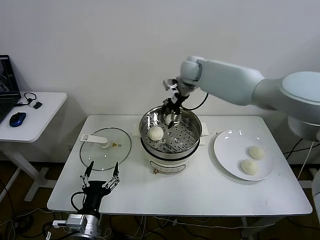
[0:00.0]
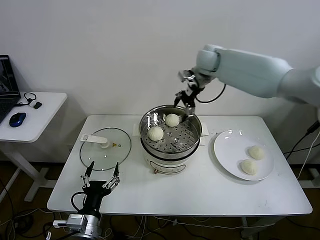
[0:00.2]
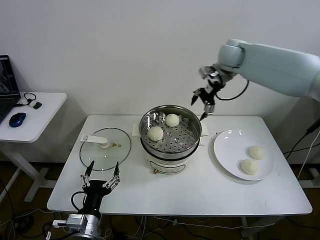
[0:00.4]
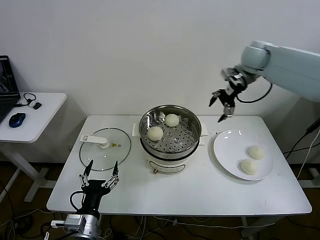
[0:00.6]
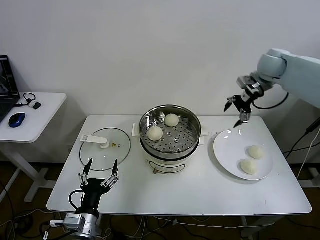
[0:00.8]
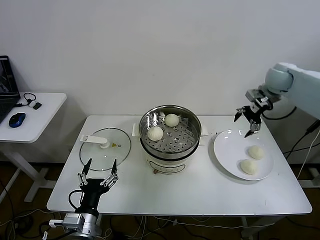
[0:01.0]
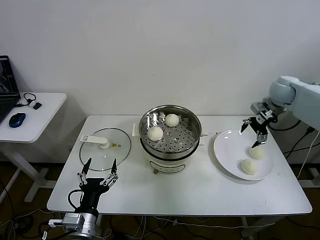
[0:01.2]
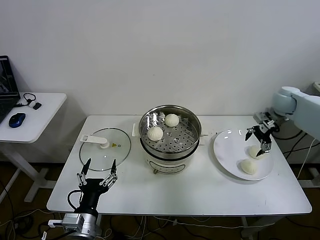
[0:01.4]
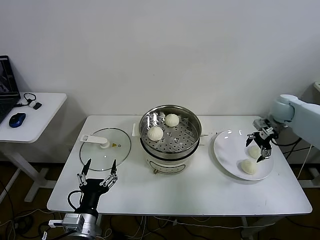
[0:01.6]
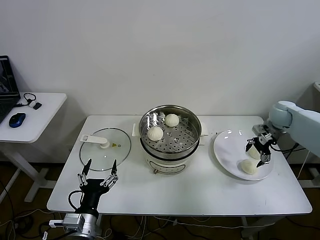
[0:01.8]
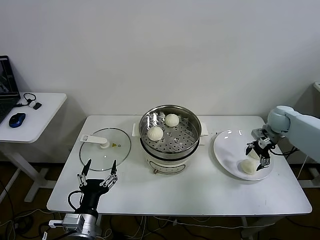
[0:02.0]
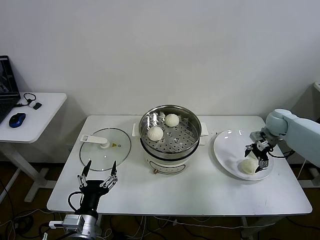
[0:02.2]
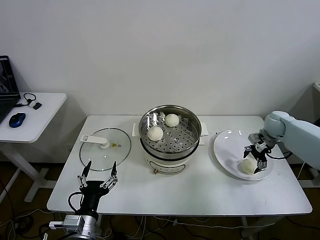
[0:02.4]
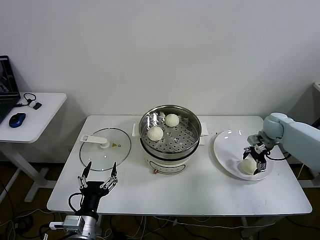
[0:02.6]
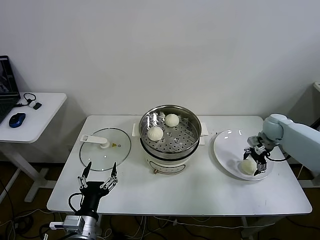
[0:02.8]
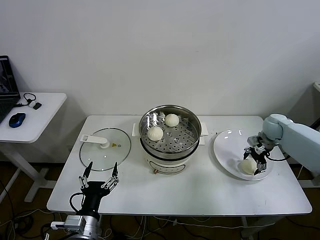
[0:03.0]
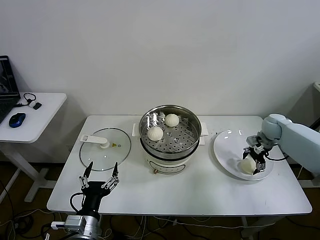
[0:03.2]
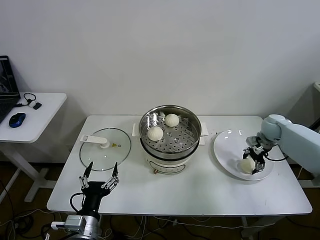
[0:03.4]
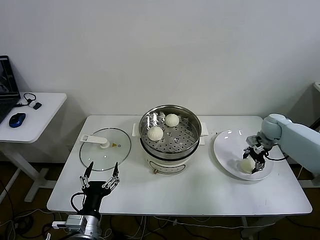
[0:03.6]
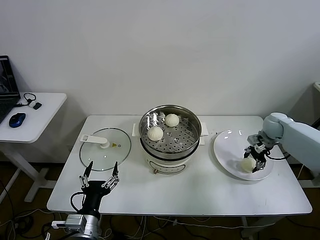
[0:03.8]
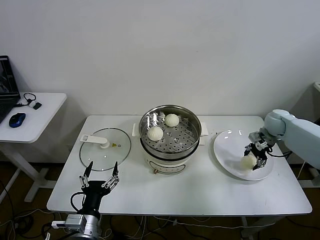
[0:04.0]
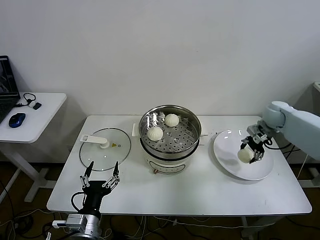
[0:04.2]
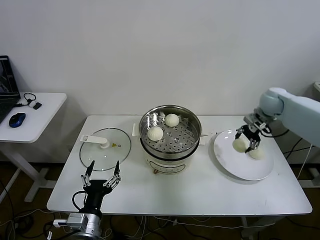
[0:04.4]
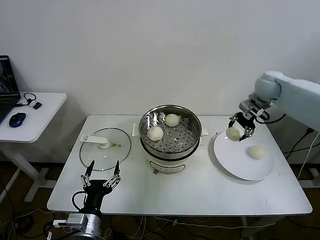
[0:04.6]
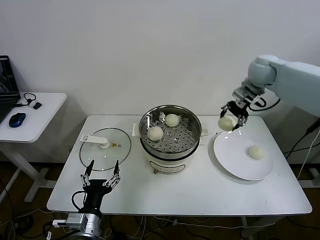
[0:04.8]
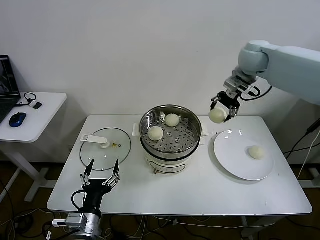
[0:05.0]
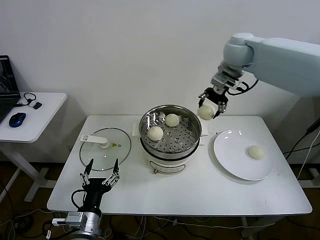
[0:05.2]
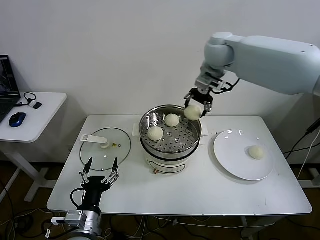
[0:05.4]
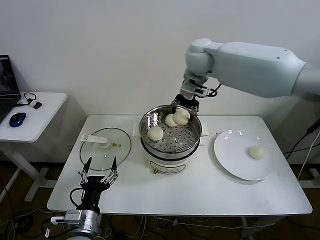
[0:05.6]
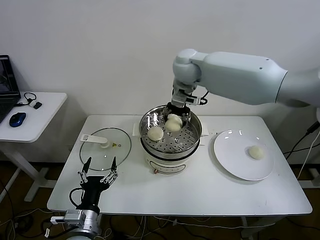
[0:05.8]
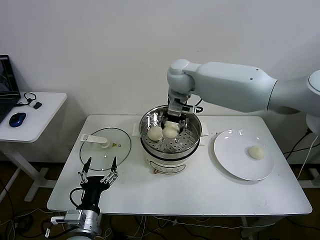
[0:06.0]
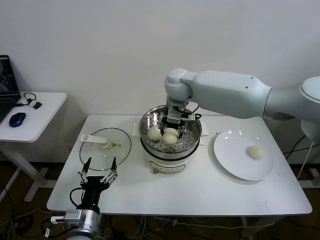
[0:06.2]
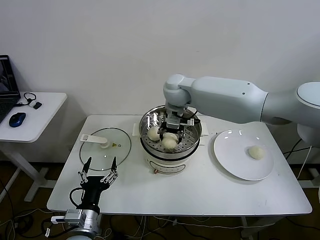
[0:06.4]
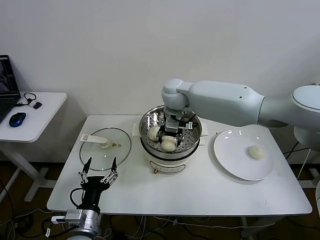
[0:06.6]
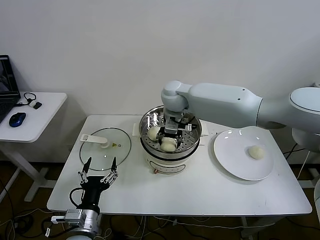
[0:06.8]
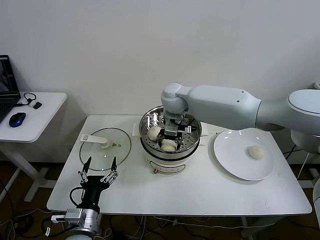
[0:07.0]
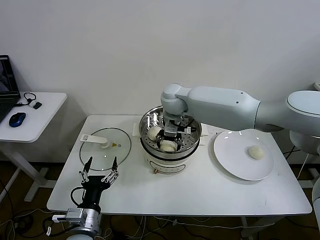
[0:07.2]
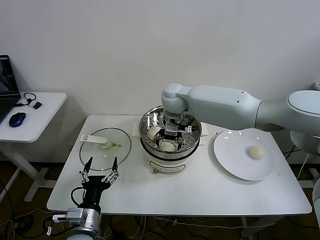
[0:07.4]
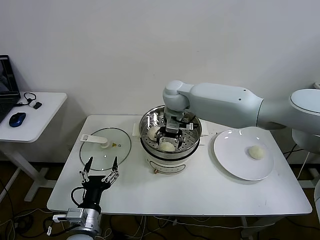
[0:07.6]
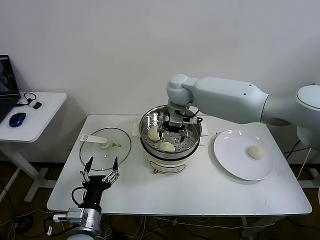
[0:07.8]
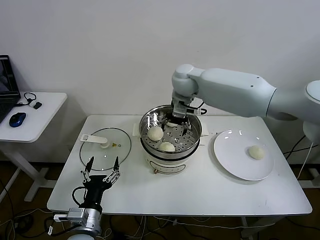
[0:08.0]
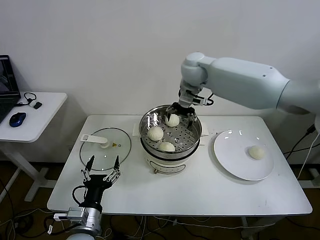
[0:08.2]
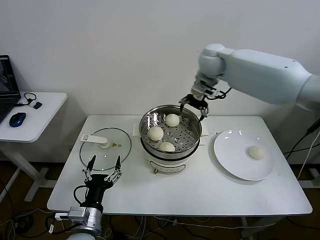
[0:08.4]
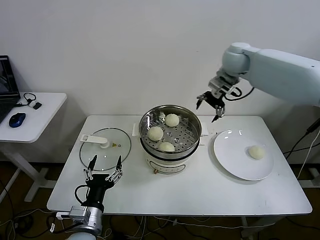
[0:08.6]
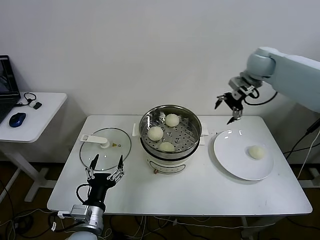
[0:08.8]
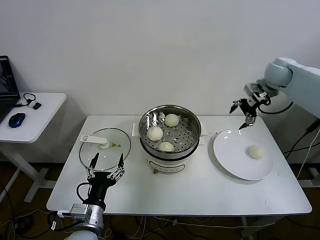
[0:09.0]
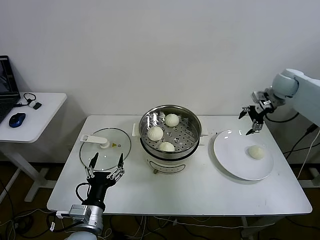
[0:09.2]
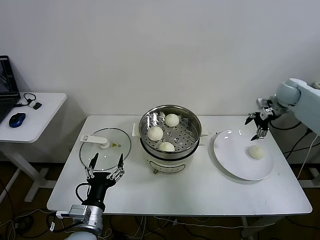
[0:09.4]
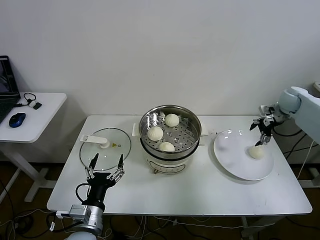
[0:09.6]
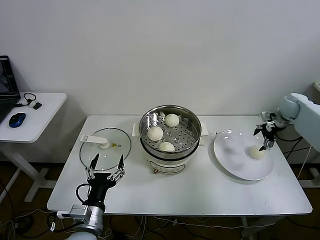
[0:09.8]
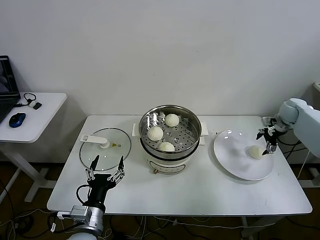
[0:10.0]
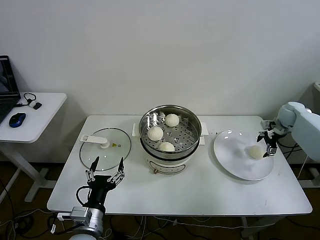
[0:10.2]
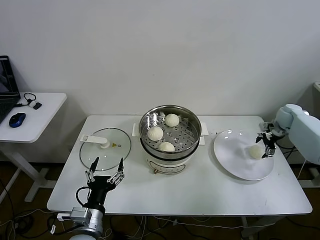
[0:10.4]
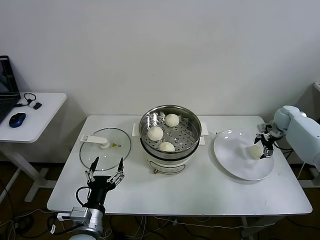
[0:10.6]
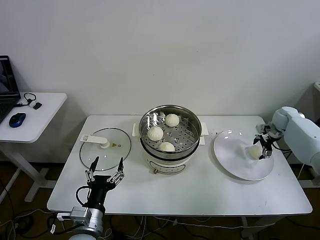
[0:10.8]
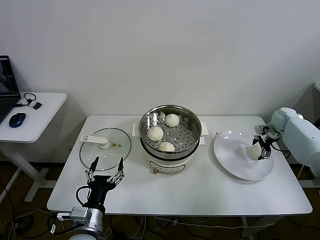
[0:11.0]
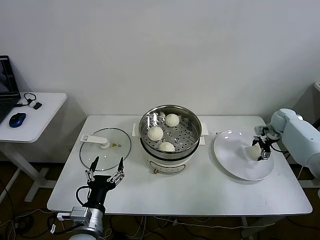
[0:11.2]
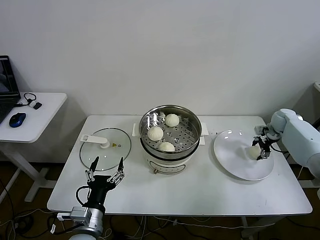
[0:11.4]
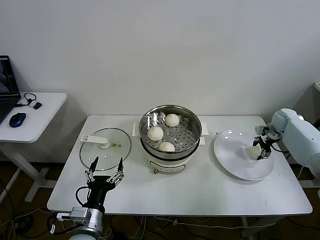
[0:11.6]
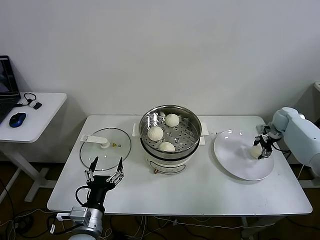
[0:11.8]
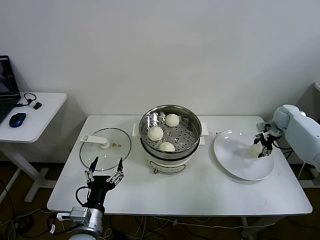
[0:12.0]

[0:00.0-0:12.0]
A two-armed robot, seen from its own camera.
Step, 0.0 to 3.4 s: Grasp the baozi in the plate with right gripper.
Step, 3.8 to 7.6 s: Place the baozi on the steamer with right gripper.
Step, 7.8 to 11.4 s: Grasp the baozi in the plate with right gripper.
0.0 to 1.6 s: The right gripper shifts roughly 35 cm to the right.
1.6 to 3.0 s: The right gripper shifts about 10 cm downward.
3.0 to 4.4 s: The right gripper heads upward, covering some 10 cm, and closes its fingers.
4.4 to 6.0 s: The right gripper heads to the left, covering about 35 cm.
6.0 to 7.6 s: The right gripper heads downward, covering approximately 5 cm, and opens up.
7.6 to 9.0 s: The right gripper heads to the right, covering roughly 35 cm.
9.0 to 10.4 s: The right gripper heads downward and to the right, covering about 20 cm.
10.4 to 12.0 s: The right gripper closes its fingers.

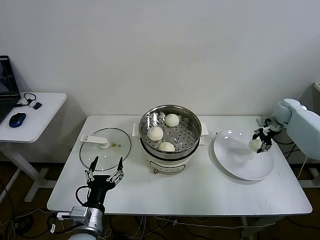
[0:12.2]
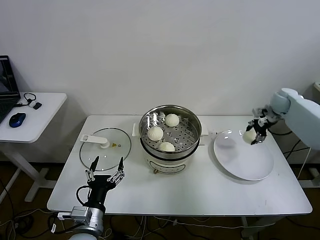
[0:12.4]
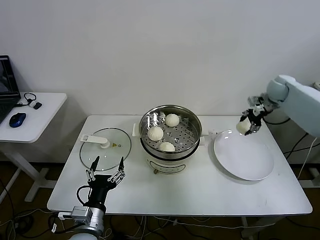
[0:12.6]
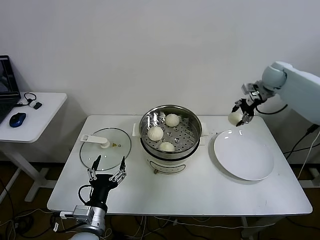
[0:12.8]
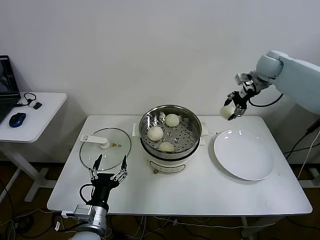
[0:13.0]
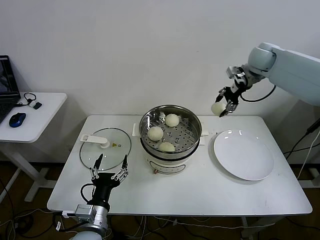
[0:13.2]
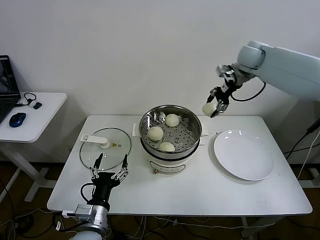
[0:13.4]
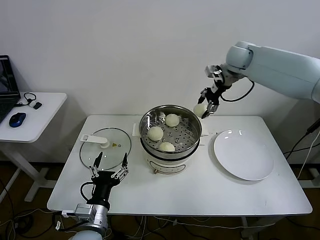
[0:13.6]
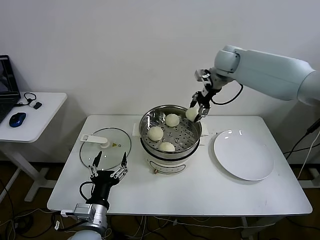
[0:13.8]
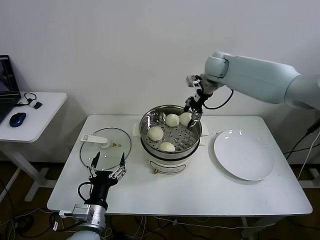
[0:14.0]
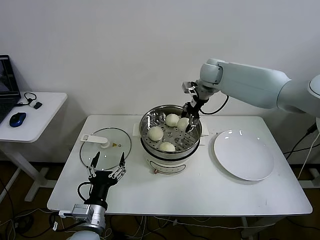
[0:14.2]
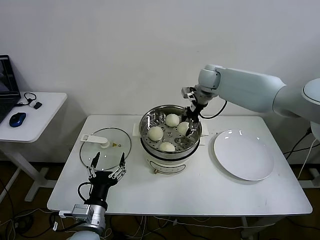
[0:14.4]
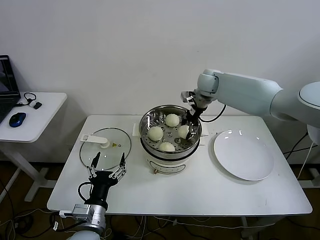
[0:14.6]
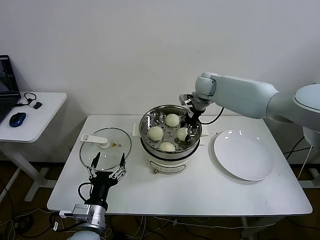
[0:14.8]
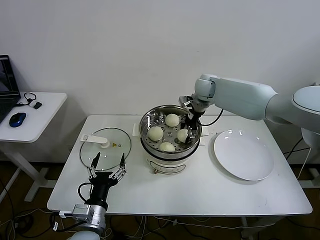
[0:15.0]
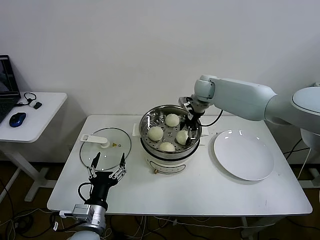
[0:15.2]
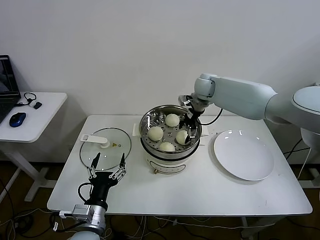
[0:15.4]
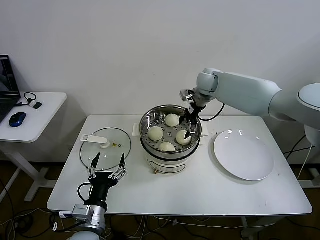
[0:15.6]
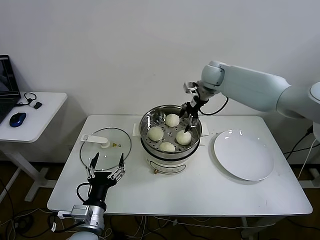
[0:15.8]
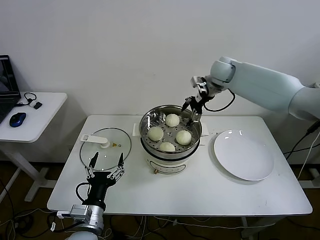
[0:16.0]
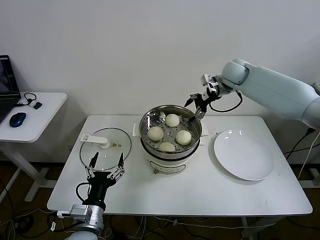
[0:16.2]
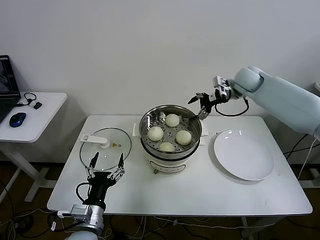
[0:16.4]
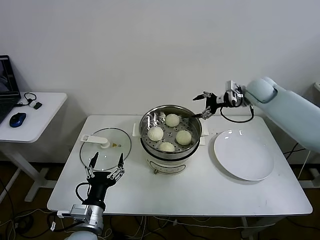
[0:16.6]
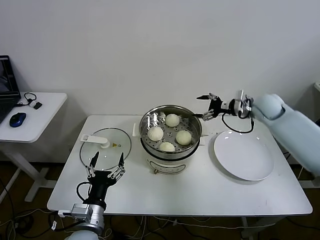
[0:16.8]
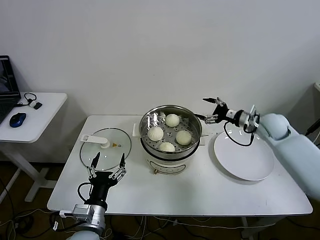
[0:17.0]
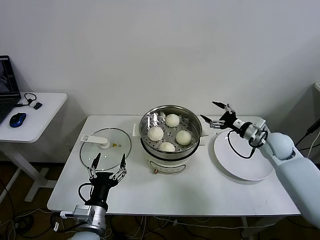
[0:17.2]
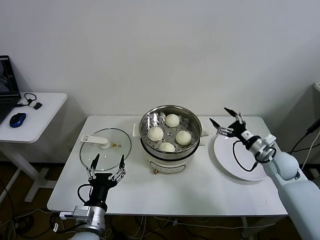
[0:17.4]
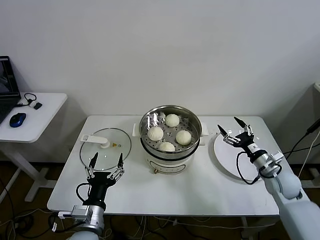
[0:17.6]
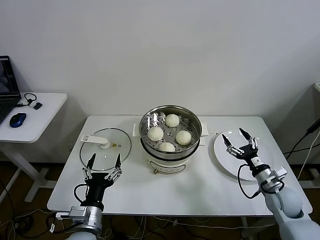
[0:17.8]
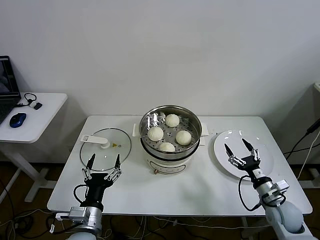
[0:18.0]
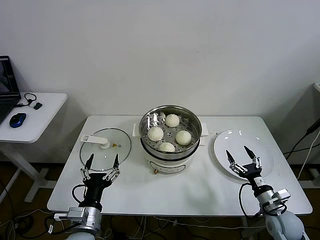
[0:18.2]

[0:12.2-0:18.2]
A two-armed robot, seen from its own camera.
Step, 12.2 to 15.6 s: Place the baozi on the steamer with right gripper.
12.2 to 13.8 s: The right gripper heads to the left and upward, covering about 35 cm.
13.8 to 15.2 s: The right gripper travels downward and to the left by roughly 15 cm, and opens.
15.2 to 16.6 s: The right gripper travels to the right by some 15 cm.
16.6 to 18.2 s: The right gripper travels backward and downward by roughly 40 cm.

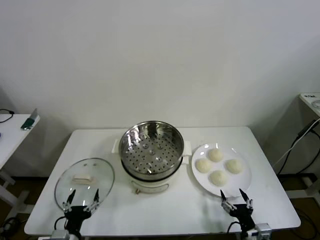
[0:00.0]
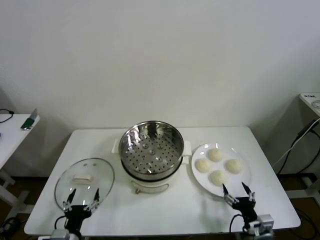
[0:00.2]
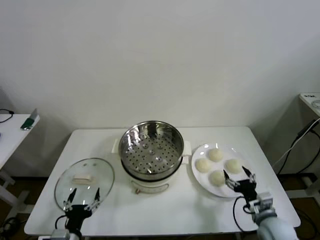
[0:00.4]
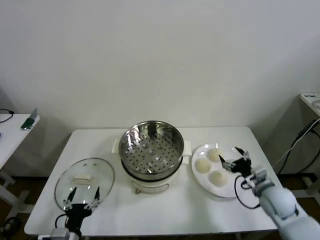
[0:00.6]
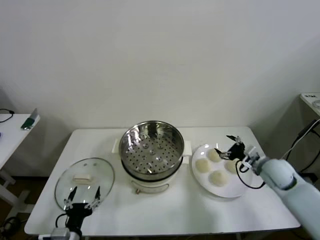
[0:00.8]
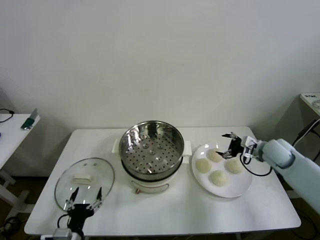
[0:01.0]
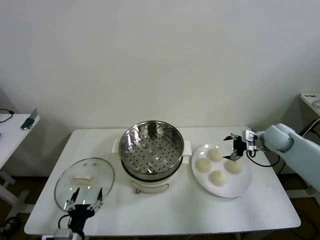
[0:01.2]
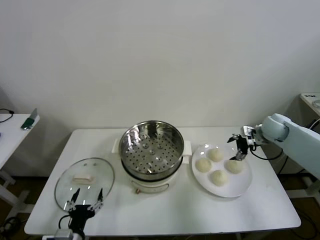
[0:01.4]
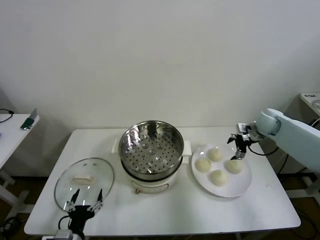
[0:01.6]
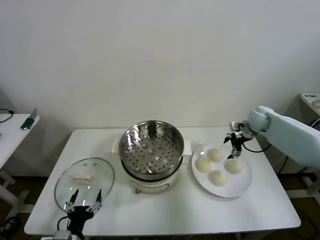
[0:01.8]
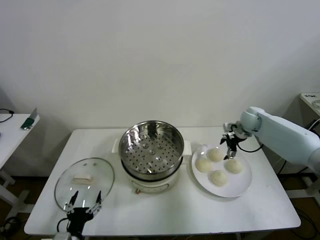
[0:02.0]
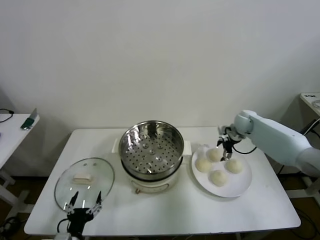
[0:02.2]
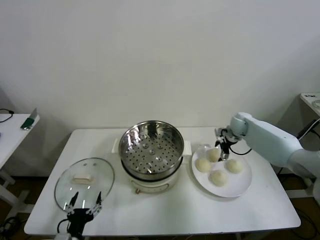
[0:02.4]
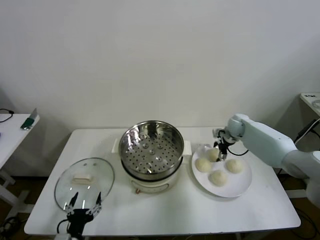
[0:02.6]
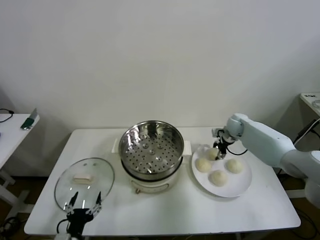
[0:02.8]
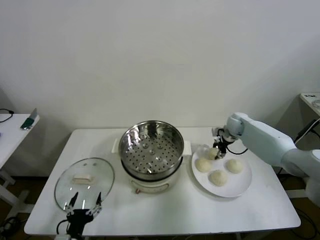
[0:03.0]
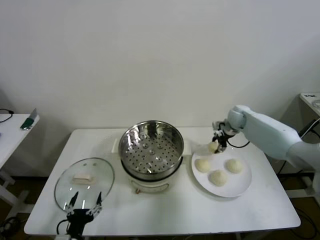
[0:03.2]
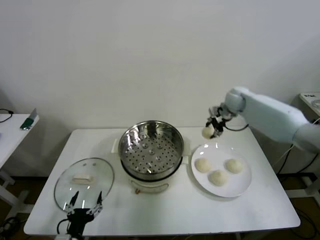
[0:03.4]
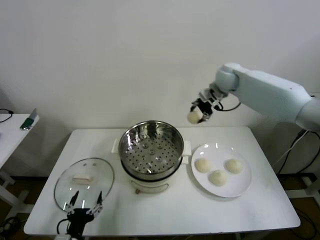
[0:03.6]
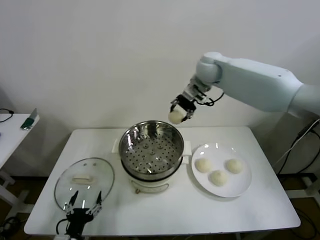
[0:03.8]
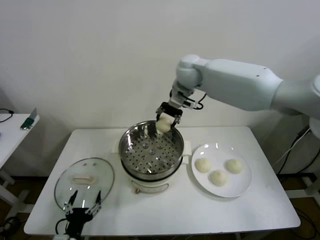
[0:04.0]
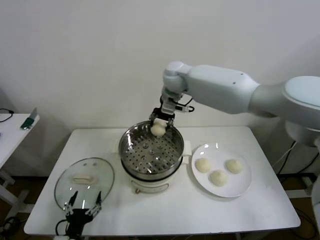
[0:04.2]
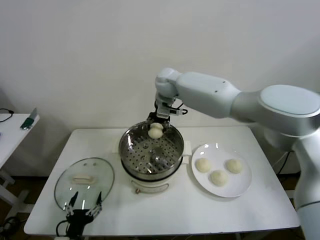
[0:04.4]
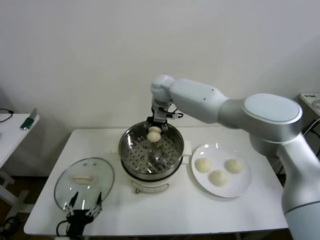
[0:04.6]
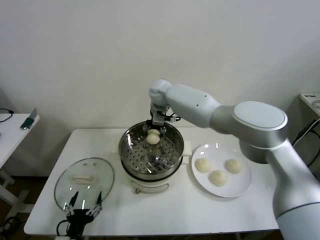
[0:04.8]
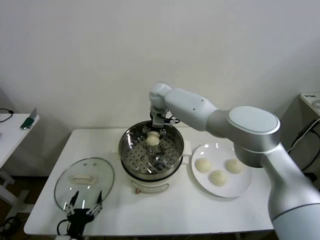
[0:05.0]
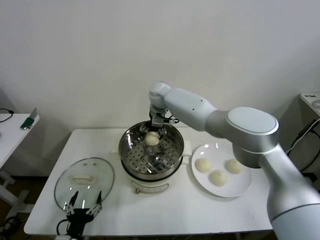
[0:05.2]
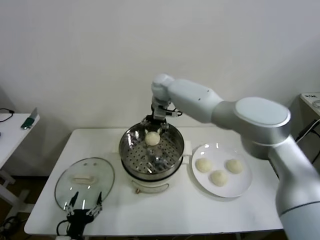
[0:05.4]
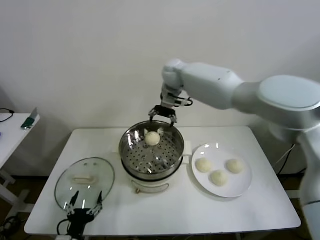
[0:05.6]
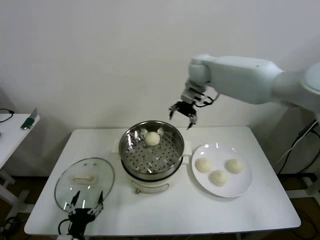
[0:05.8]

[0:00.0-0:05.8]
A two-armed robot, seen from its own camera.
Step, 0.0 to 2.8 s: Grasp the baozi in the plate with right gripper.
Step, 3.0 to 5.0 s: Place the baozi on the steamer with right gripper.
1.4 to 2.8 s: The right gripper goes approximately 15 cm to the left, downward and forward, and closes.
2.8 to 4.4 s: The right gripper is displaced to the left and upward by about 35 cm.
4.4 to 5.8 s: The right gripper heads to the right, covering some 15 cm, and opens.
